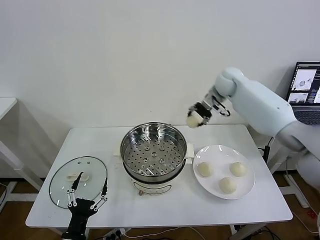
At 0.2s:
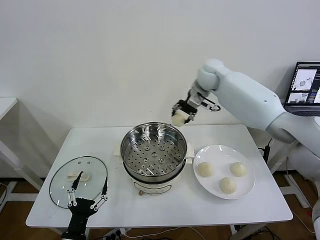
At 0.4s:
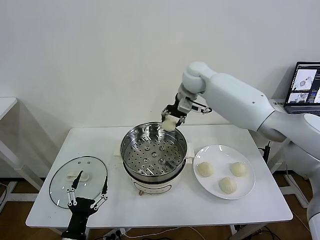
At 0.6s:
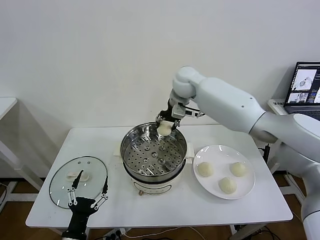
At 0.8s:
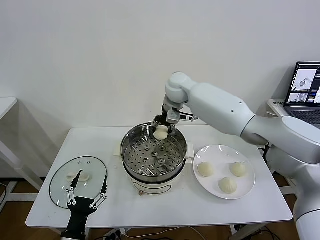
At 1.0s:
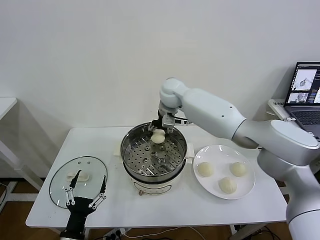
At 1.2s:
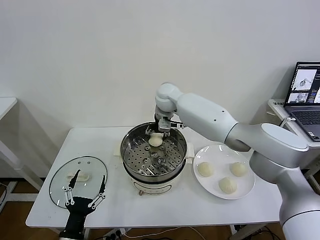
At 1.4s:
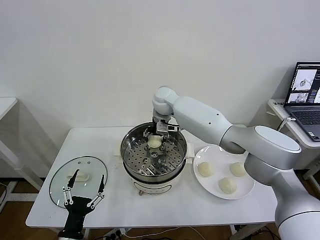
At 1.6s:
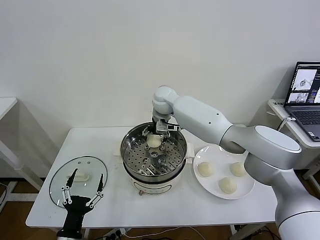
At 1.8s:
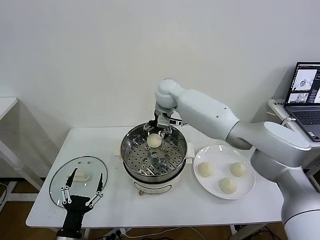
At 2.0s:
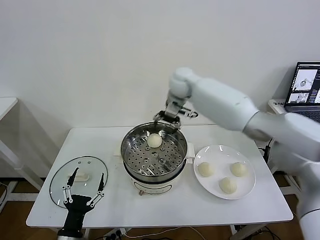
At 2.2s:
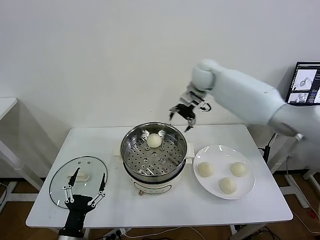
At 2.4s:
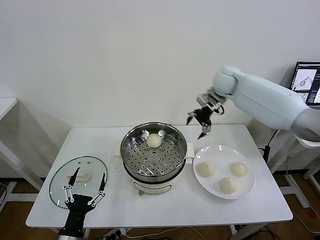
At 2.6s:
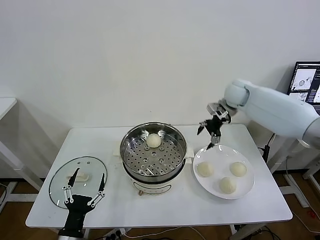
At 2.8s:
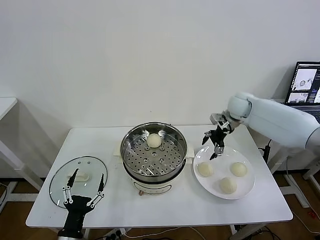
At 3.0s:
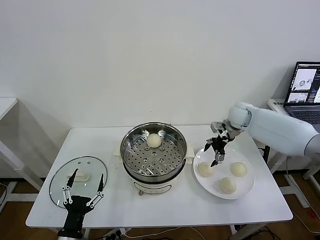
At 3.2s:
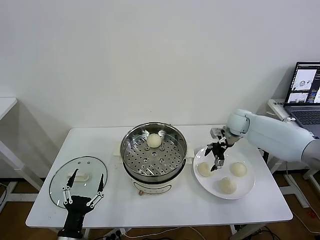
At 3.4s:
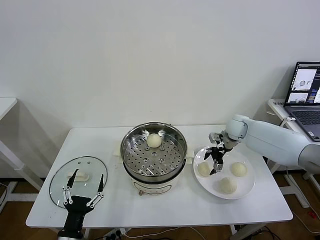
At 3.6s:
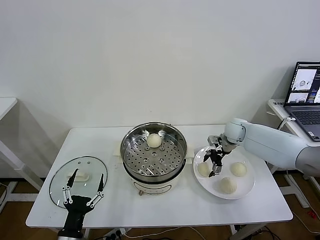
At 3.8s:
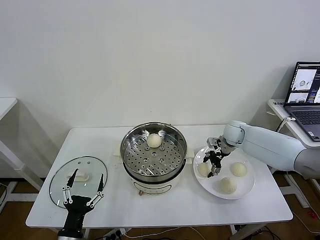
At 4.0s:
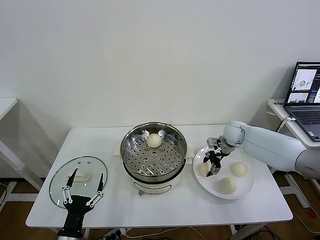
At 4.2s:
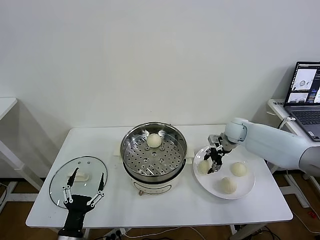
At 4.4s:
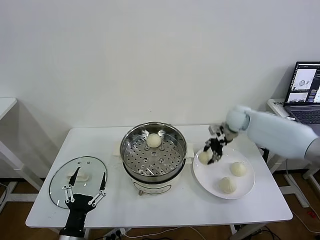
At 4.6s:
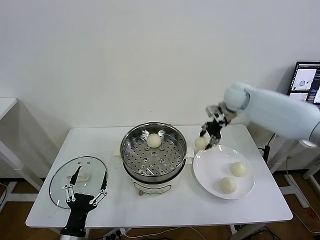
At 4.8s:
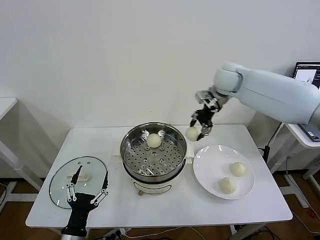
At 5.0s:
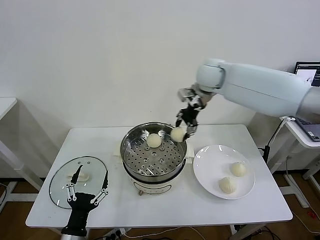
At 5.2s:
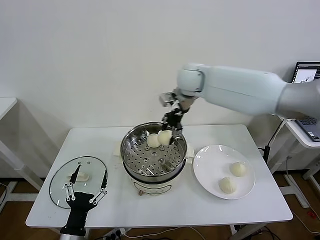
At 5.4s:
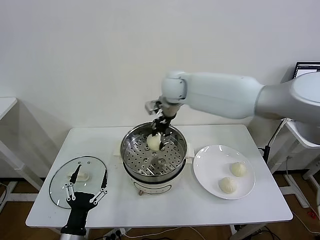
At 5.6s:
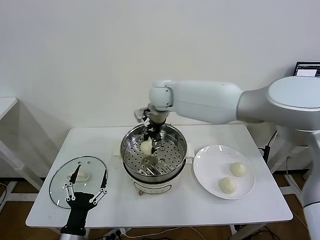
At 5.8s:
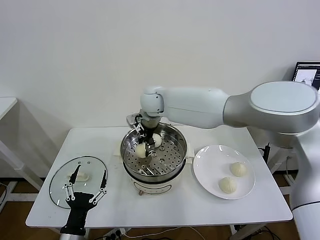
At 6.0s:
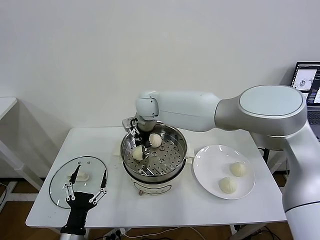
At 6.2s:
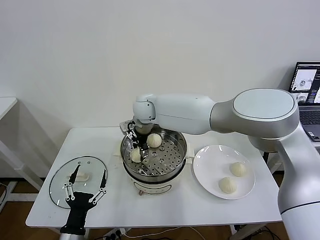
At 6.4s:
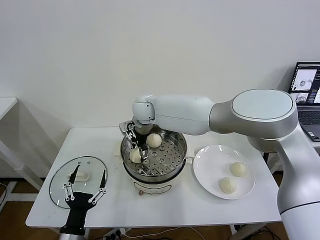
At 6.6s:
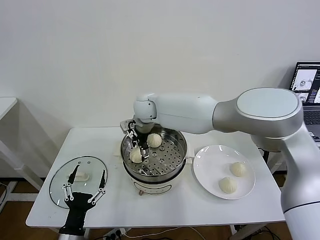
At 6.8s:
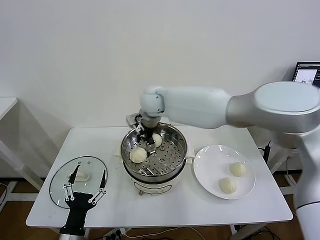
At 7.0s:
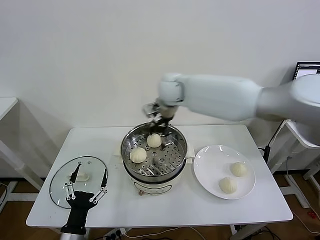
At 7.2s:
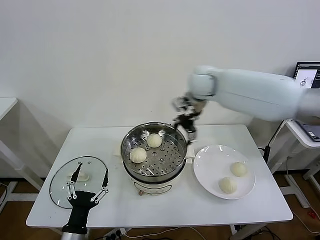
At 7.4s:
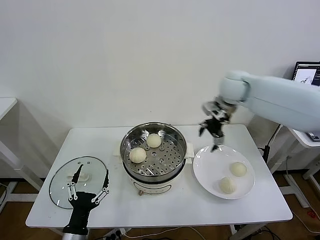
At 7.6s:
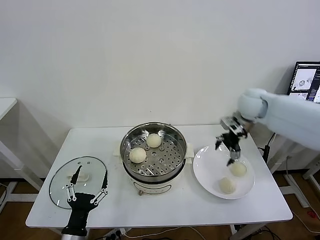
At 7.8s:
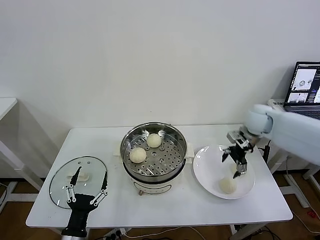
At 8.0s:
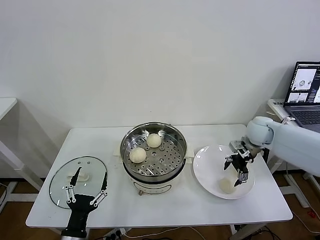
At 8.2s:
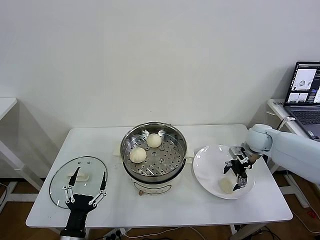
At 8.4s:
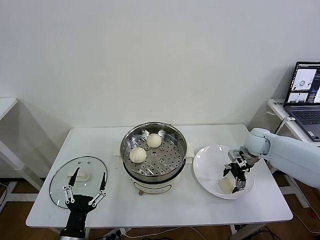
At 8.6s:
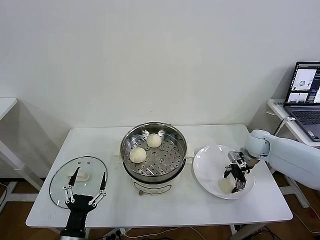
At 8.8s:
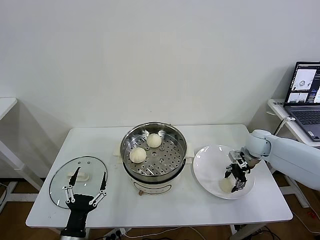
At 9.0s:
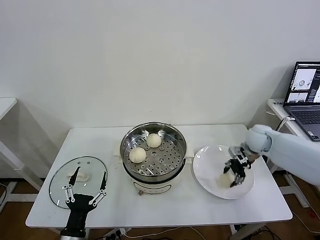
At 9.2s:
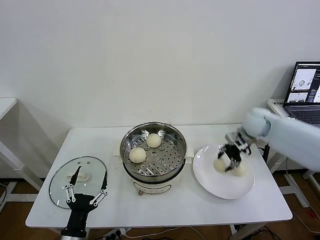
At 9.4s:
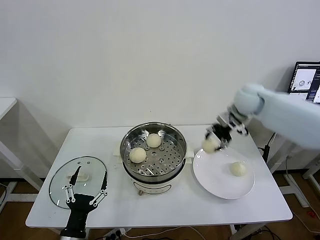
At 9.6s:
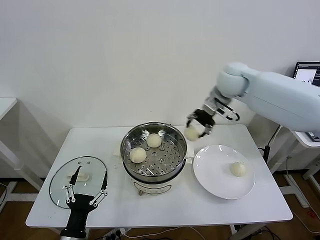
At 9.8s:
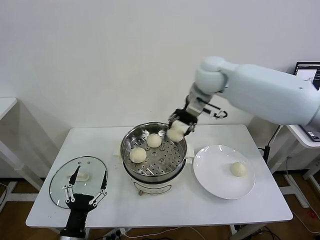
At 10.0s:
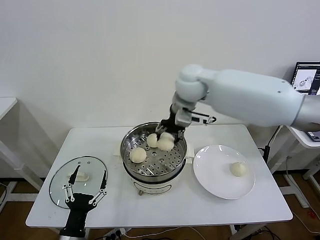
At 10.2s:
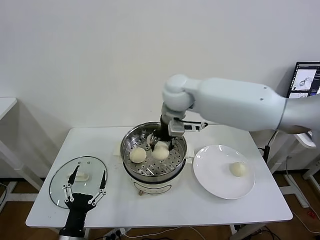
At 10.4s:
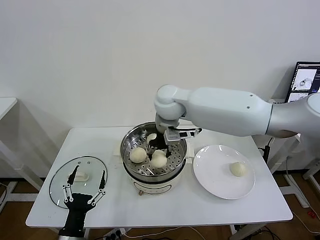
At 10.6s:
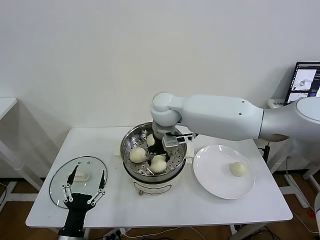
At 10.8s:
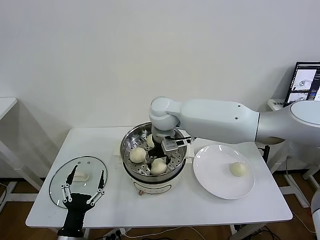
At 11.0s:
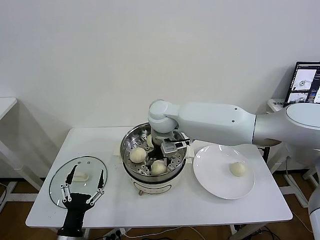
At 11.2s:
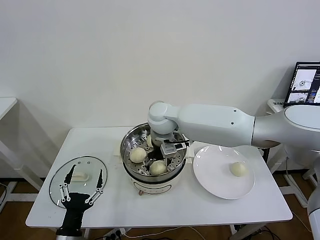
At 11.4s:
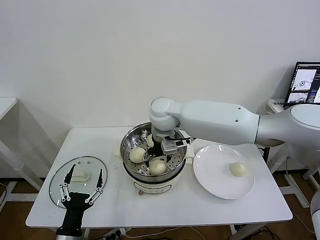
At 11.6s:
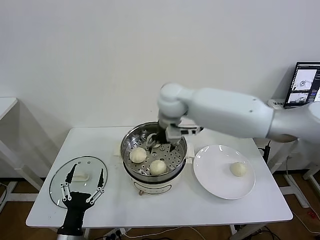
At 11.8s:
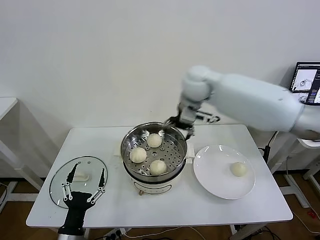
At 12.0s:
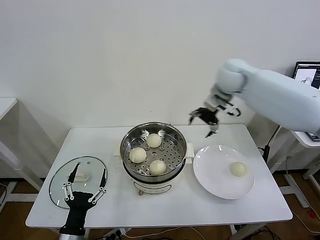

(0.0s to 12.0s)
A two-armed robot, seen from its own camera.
Task of the whole recording: take steamed baozi put them in steamer then cover it.
Step, 0.0s - 1.6s: Place the baozi on the steamer with right gripper.
Step, 1.8s - 4.0s: Grasp the baozi in the plate with right gripper.
Step, 4.2s - 6.6s: Place the baozi on the steamer with right gripper.
Step, 6.8s - 8.8s: Grasp the baozi in the plate with right gripper.
Step, 9.0s - 11.2s: Place the baozi on the steamer with right gripper.
0.0s - 1.6s: The right gripper heads to the left, covering about 20 cm, and opens up.
1.6s - 3.0s: The right gripper shifts roughly 30 cm to the right.
3.0s - 4.4s: The right gripper ends up about 5 cm from where it was, and closes.
4.4s - 6.0s: The right gripper travels to the left by about 35 cm.
6.0s - 7.6s: The right gripper is displaced to the right by roughly 35 cm, and opens up.
7.6s - 9.0s: The right gripper shifts some 10 cm downward, and closes.
9.0s - 10.4s: The right gripper goes about 35 cm to the left and upward.
10.4s - 12.0s: The right gripper moves to the right, about 20 cm, and opens up.

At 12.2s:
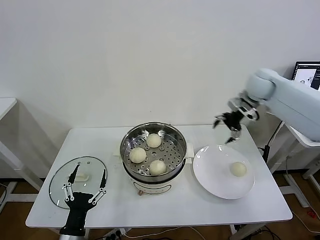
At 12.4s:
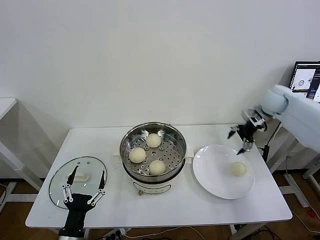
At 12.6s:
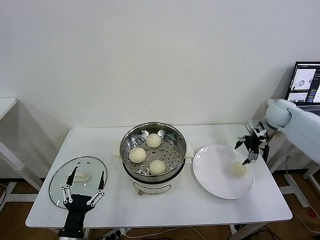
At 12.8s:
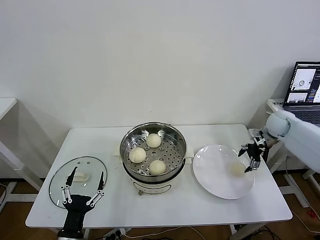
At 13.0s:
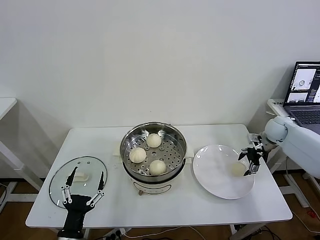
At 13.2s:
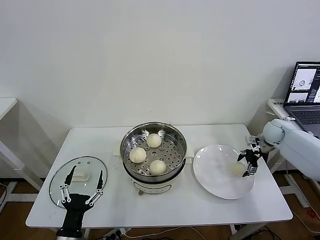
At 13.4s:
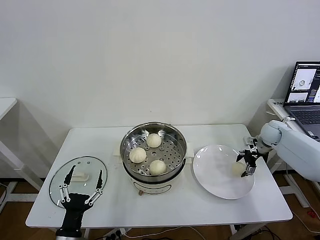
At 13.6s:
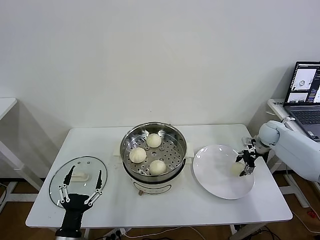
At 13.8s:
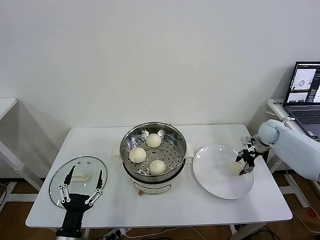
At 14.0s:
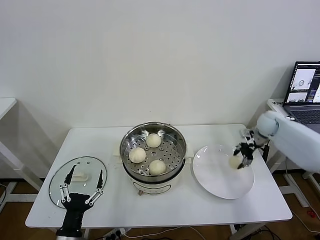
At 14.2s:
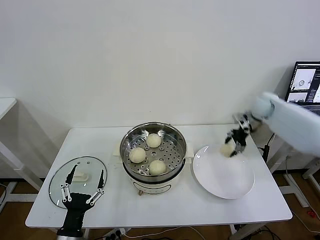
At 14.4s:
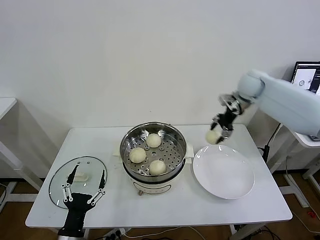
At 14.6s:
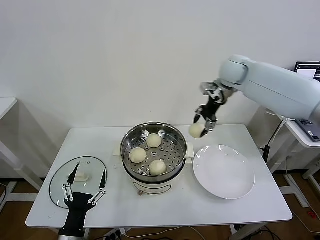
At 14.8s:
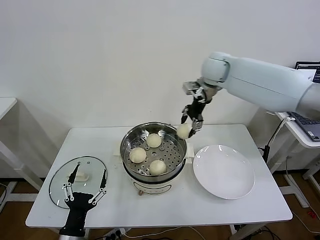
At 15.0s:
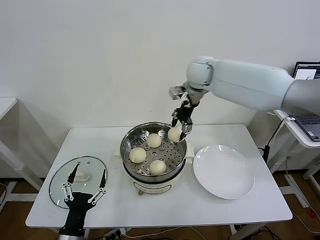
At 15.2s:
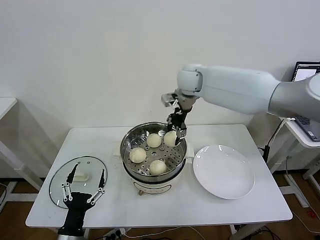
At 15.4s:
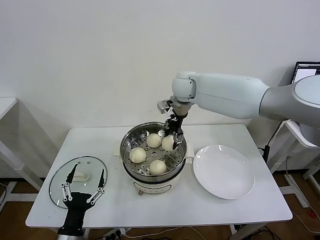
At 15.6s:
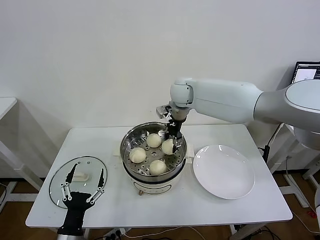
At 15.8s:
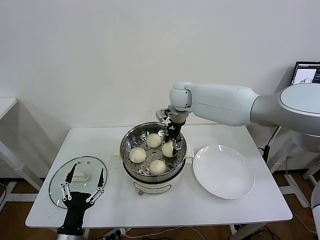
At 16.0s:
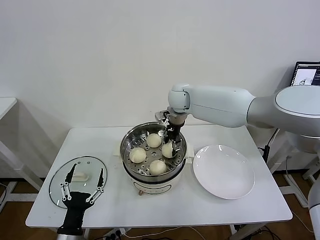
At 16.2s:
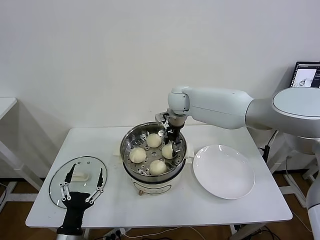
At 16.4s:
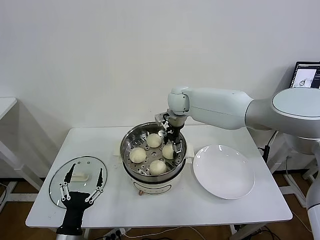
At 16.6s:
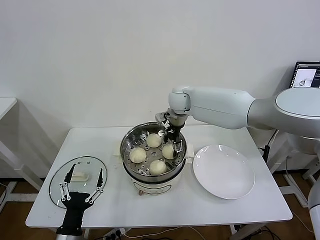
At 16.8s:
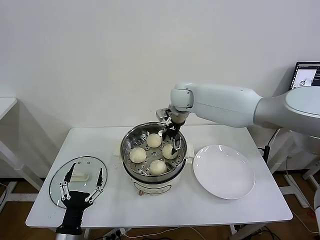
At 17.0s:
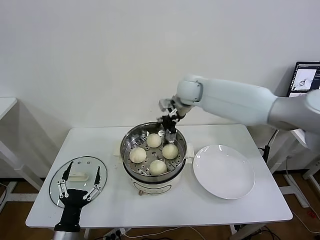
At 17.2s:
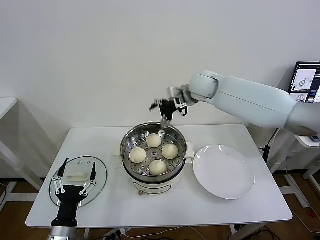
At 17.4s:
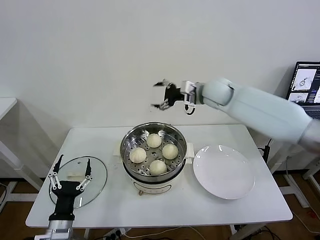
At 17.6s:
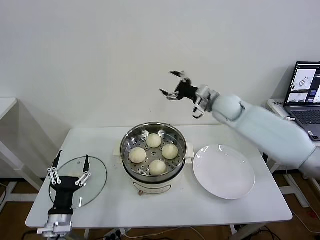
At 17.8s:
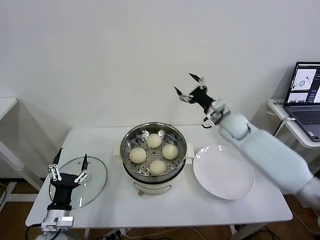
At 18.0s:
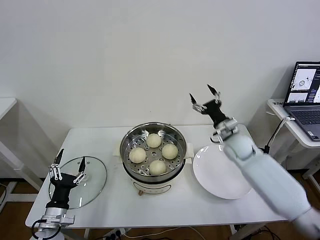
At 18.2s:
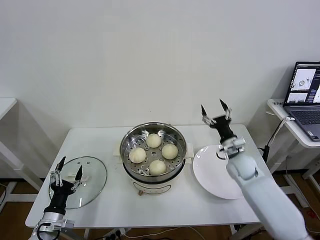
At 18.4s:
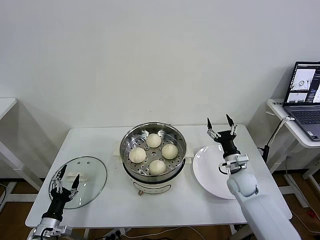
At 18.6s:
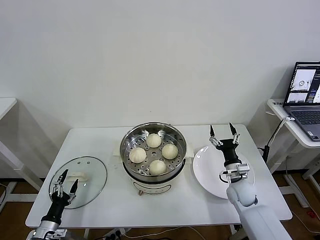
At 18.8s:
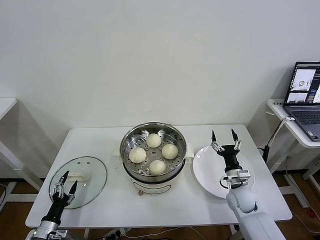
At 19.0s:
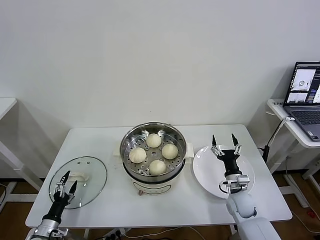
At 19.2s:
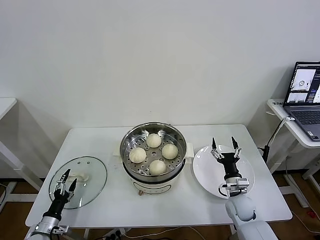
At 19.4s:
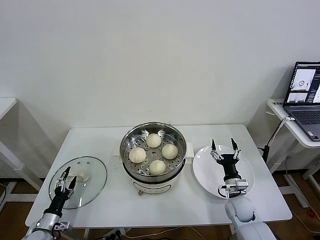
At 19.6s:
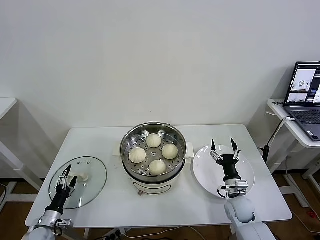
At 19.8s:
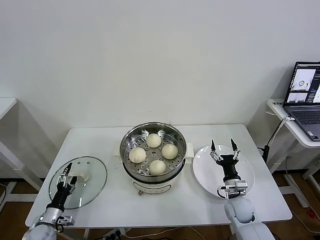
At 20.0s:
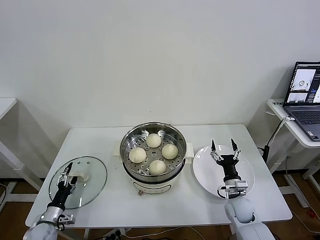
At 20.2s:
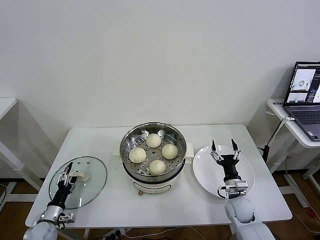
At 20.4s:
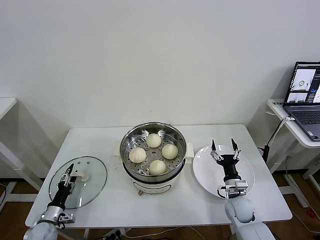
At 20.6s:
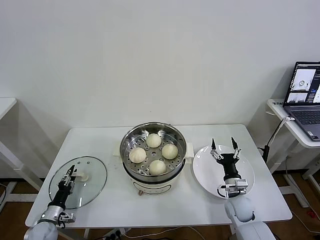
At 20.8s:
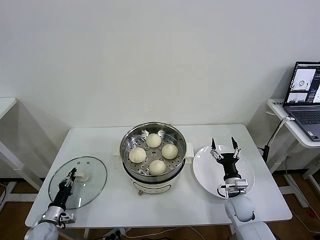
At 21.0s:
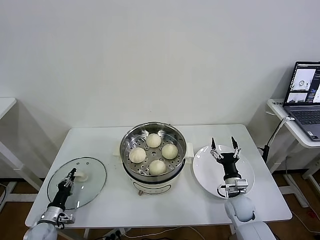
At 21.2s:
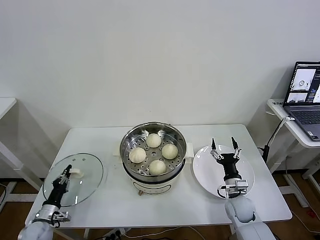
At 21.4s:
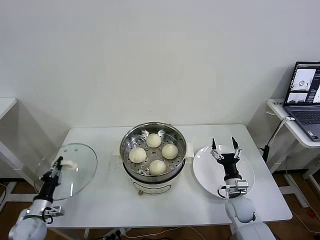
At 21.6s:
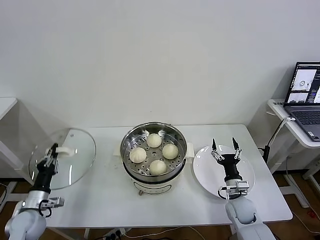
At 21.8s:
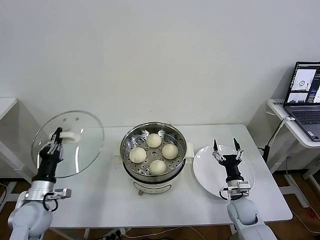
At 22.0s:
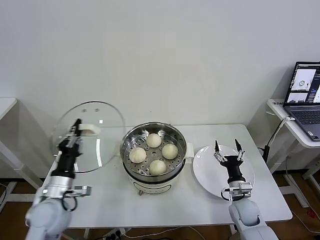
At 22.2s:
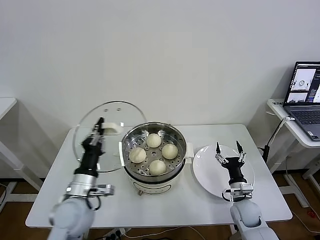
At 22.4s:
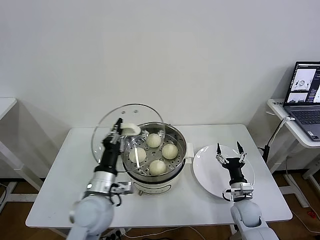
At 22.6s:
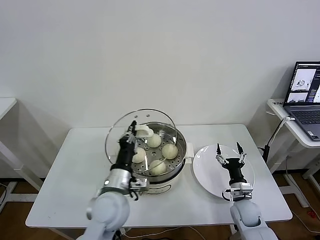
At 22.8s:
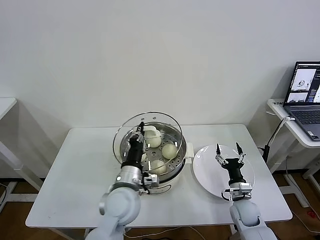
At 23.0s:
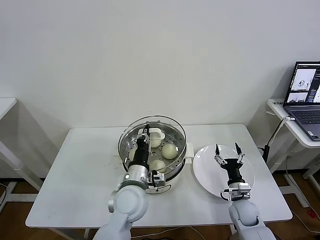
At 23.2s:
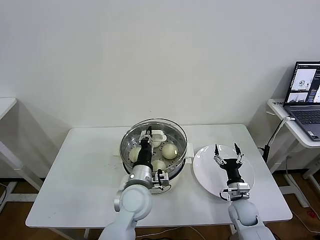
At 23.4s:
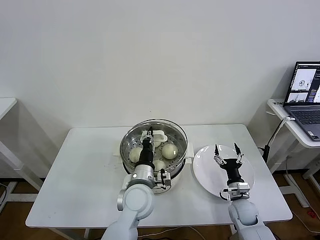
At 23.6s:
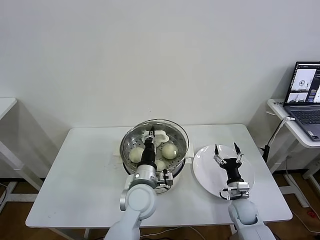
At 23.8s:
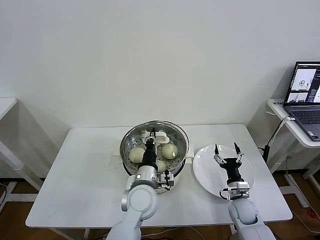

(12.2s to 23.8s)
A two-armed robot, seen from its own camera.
Task of the whole recording: take steamed baozi put them in steamer then cover it.
Step, 12.2s - 13.6s: Grasp the baozi in the plate with right gripper.
Step, 13.8s - 16.6s: Place the baozi on the steamer with right gripper.
Step, 16.8s - 20.8s: Grasp the pot lid with left gripper.
12.2s - 13.6s: The right gripper goes some 20 cm downward and to the right, and closes.
13.6s - 15.0s: The right gripper shifts about 40 cm to the left and upward.
15.0s - 16.6s: The right gripper is displaced downward by approximately 10 cm, and opens up.
16.6s - 18.0s: The right gripper travels to the right, downward and backward by approximately 30 cm. The left gripper is displaced forward and to the left by some 10 cm.
18.0s - 19.4s: The left gripper shifts about 15 cm downward and to the left; the right gripper goes some 25 cm downward and backward.
19.4s - 21.0s: The left gripper closes.
21.0s - 22.4s: The left gripper moves to the right and upward, some 35 cm.
22.4s - 23.8s: The left gripper shifts roughly 15 cm to the right.
